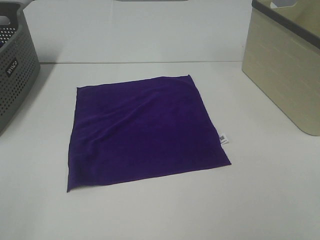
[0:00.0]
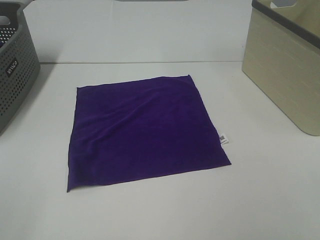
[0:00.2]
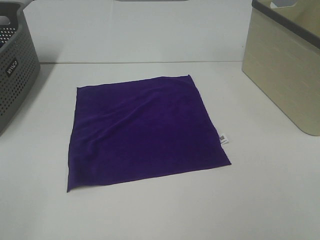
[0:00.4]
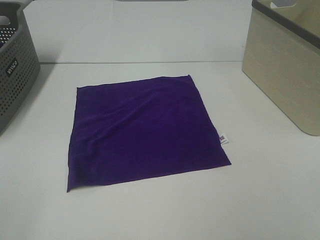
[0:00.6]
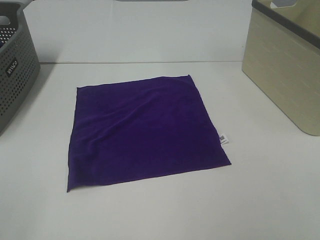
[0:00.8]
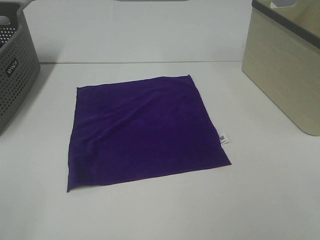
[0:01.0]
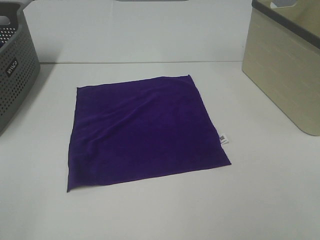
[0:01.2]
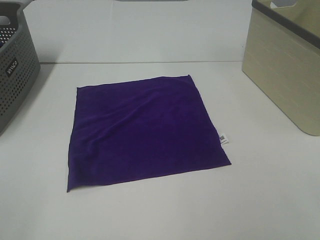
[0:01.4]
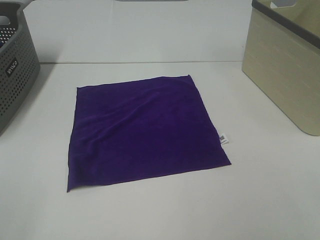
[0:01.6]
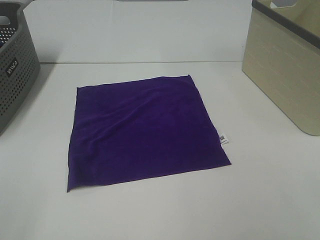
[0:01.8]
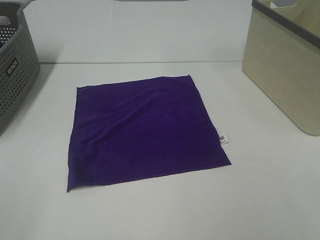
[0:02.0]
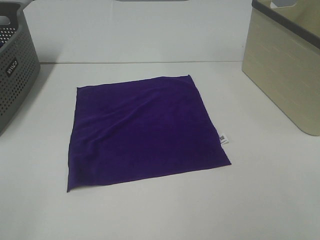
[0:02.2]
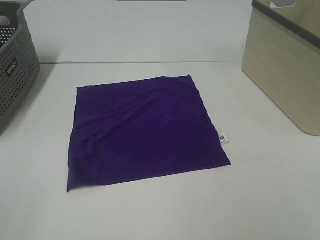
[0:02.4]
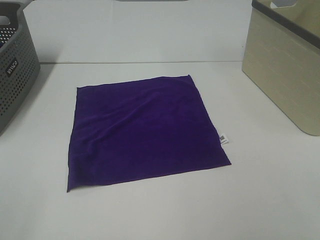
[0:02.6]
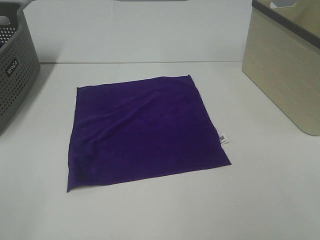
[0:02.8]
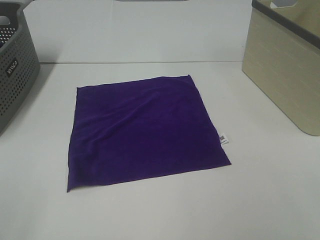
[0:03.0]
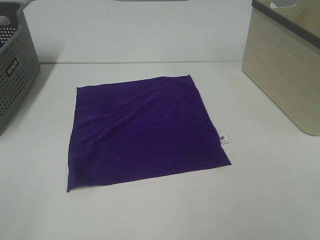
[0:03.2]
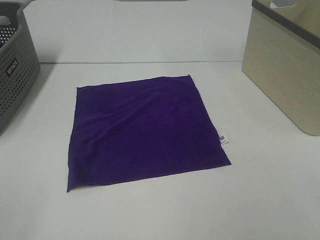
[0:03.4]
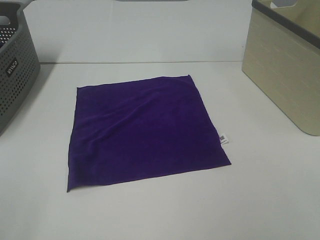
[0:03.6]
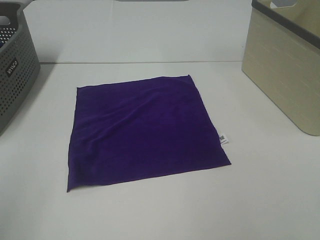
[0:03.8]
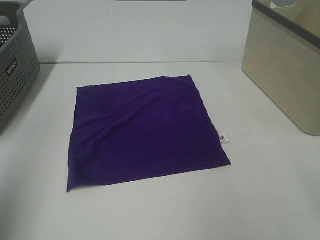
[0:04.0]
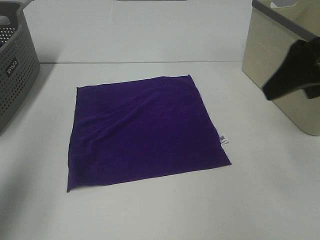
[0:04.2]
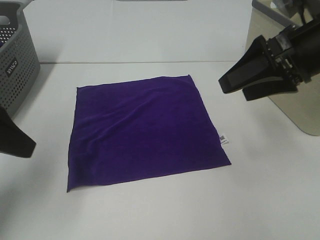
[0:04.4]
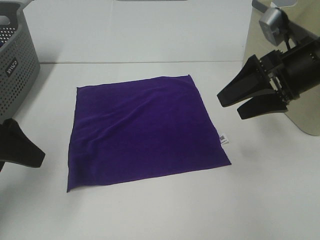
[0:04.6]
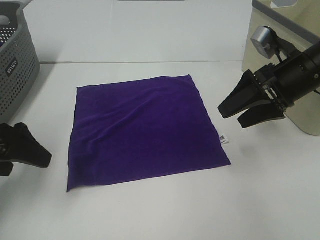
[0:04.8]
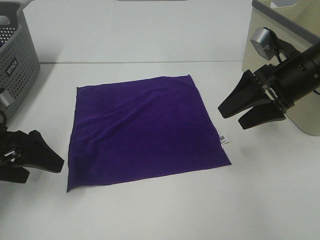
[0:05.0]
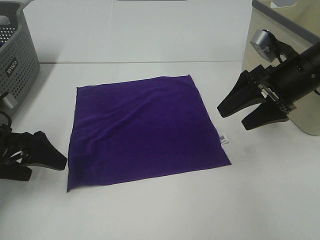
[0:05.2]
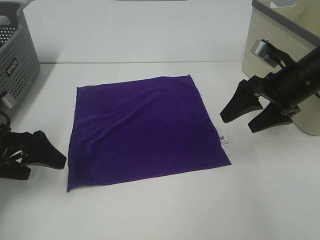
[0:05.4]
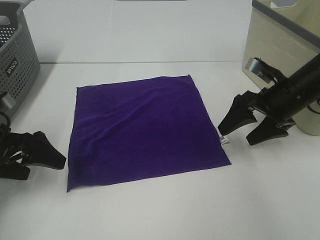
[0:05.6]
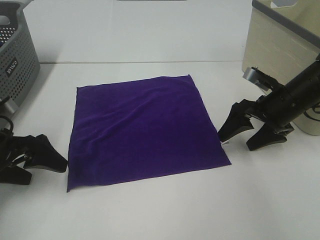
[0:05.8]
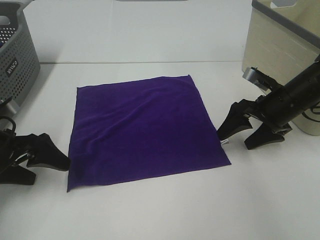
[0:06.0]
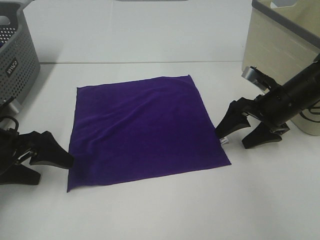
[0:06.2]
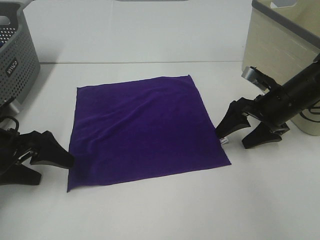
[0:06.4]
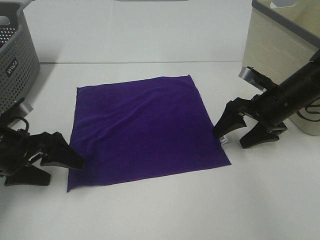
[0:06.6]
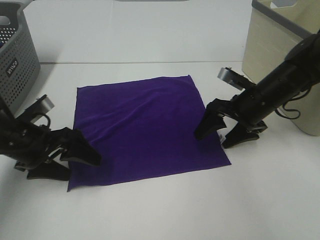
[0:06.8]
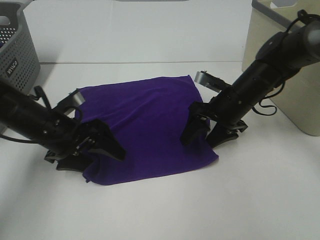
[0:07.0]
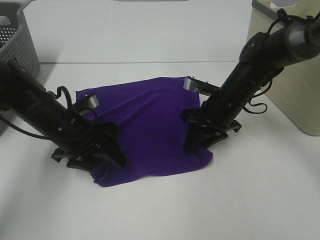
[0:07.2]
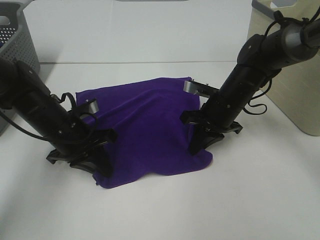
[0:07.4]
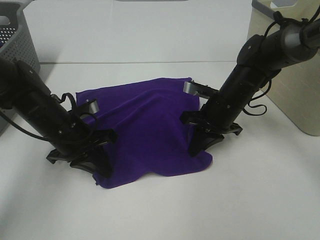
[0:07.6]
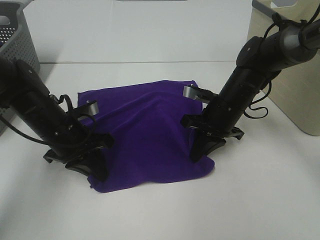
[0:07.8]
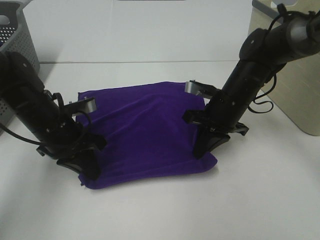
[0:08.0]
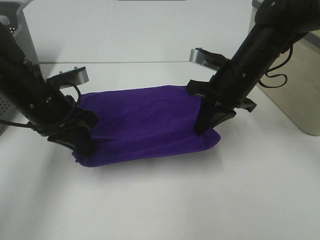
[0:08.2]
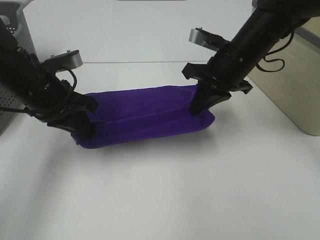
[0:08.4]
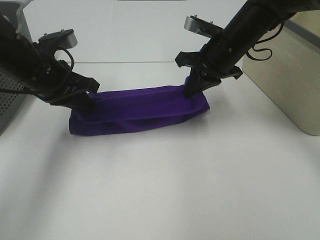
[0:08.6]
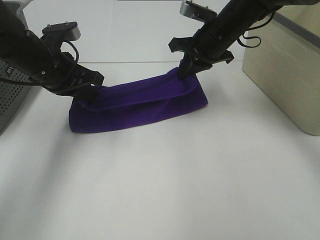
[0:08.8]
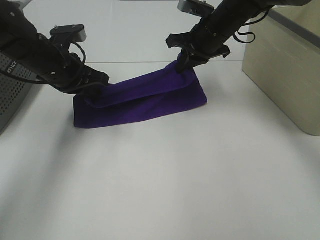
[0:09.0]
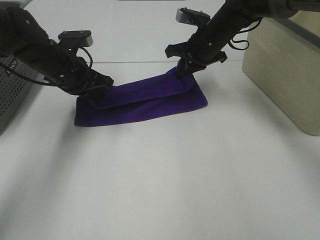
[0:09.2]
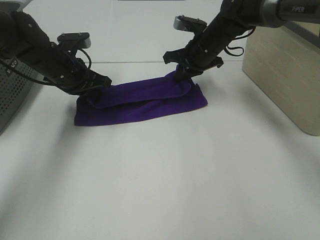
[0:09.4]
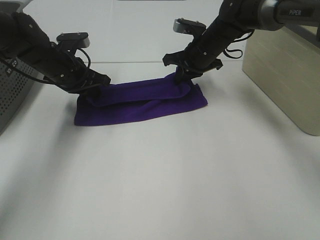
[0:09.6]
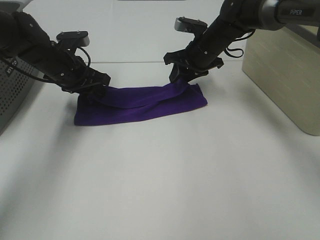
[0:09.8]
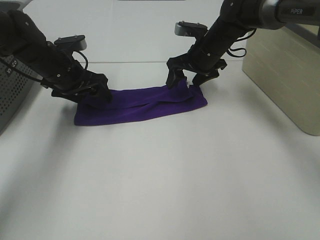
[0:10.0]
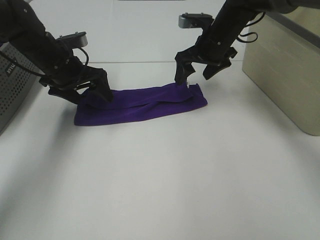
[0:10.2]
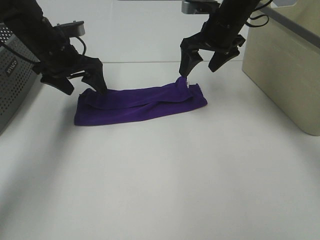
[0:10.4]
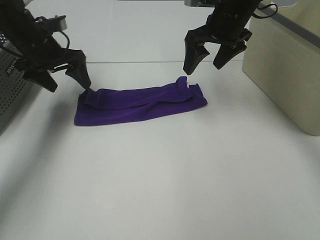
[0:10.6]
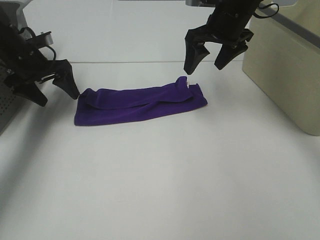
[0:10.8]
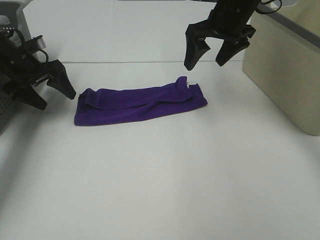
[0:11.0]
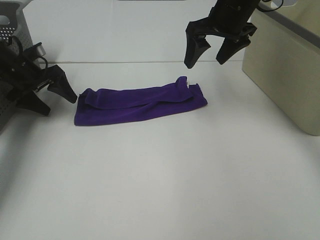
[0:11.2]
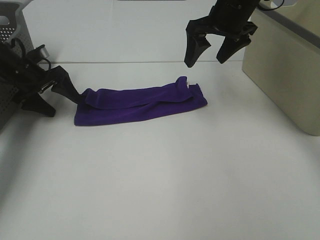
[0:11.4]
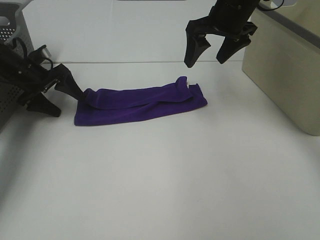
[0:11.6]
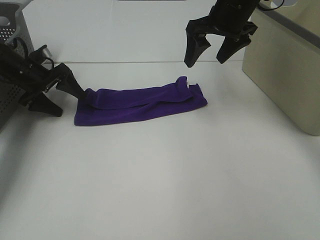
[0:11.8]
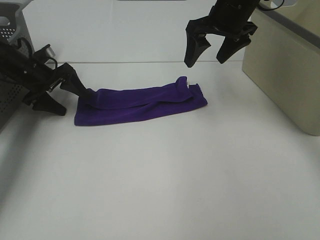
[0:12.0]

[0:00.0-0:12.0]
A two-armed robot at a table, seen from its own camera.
Task of the whole recording: Fold towels.
Step, 0:00.0 to 0:07.6: Left hand: grab the bottom left corner of purple towel.
Step, 0:00.0 to 0:07.6: Right hand: grab the bottom right corner of purple towel.
Step, 0:07.8 to 0:09.8: Left hand: fold the purple towel up.
Step, 0:07.8 to 0:09.8: Right hand: fold the purple towel up.
0:00.0 to 0:03.0: Neither gripper changes place.
0:03.0 to 0:04.4: The two grippers go some 25 cm forward.
0:04.4 to 0:06.0: The right gripper shifts roughly 15 cm downward and forward; the left gripper moves downward, some 15 cm.
0:06.0 to 0:07.6: The left gripper goes roughly 10 cm to the right and forward, and closes. Meanwhile the right gripper travels to the left by some 10 cm, and closes.
0:07.6 to 0:09.0: The grippers both shift upward and forward by about 15 cm.
0:09.0 to 0:10.4: The right gripper opens, while the left gripper changes place by approximately 5 cm, and opens up.
0:10.4 to 0:12.0: The left gripper shifts roughly 10 cm downward and to the left.

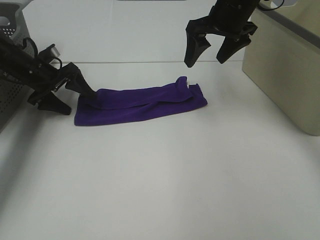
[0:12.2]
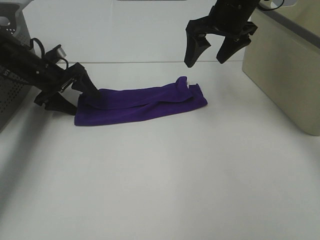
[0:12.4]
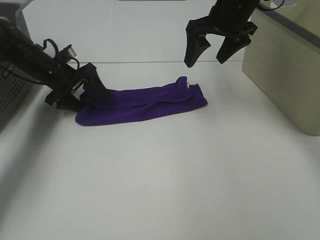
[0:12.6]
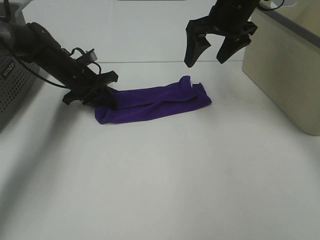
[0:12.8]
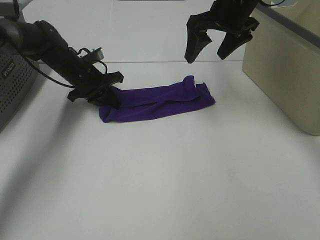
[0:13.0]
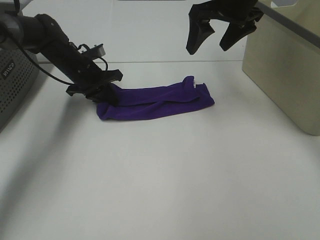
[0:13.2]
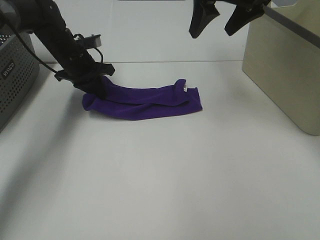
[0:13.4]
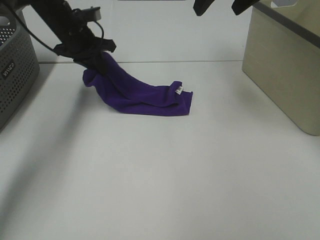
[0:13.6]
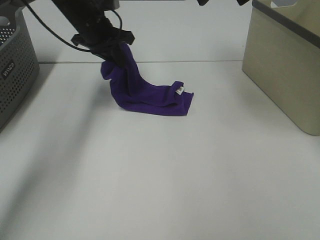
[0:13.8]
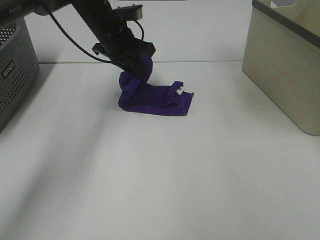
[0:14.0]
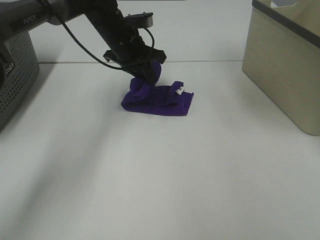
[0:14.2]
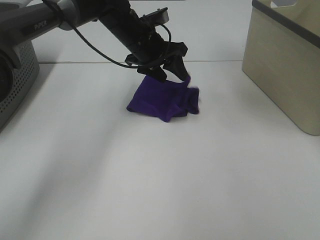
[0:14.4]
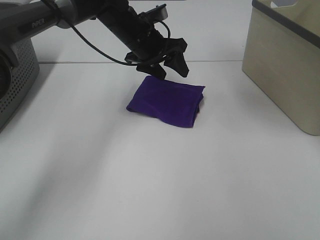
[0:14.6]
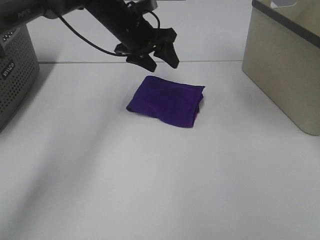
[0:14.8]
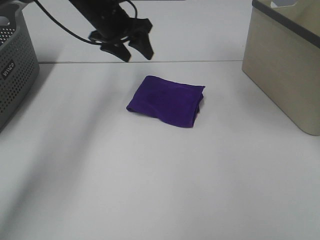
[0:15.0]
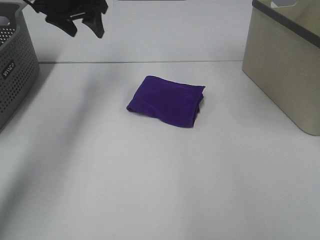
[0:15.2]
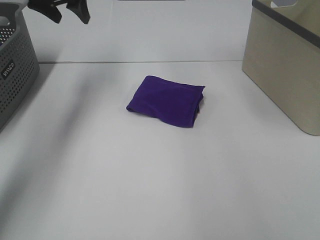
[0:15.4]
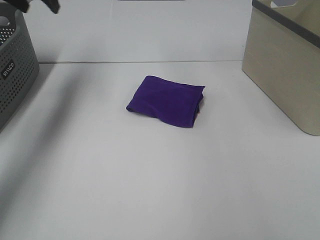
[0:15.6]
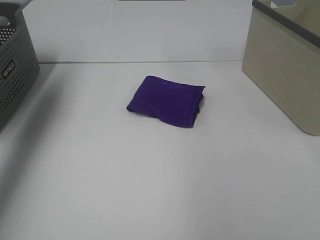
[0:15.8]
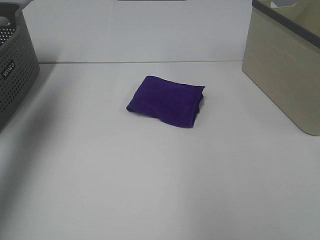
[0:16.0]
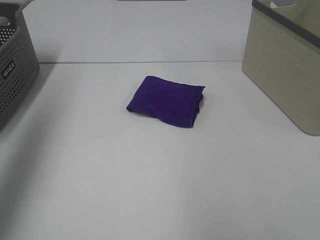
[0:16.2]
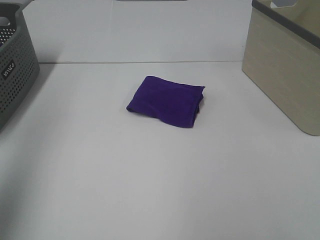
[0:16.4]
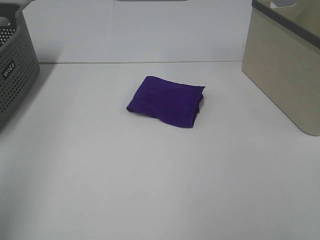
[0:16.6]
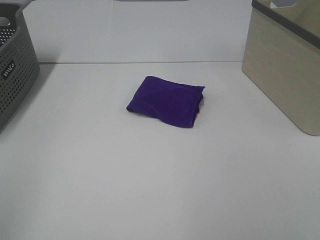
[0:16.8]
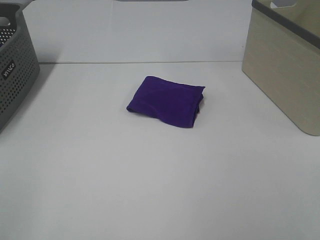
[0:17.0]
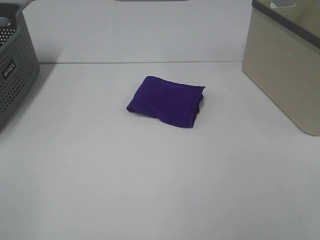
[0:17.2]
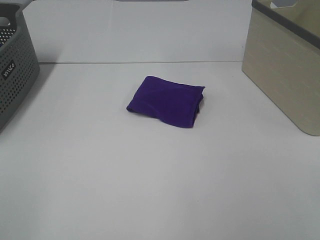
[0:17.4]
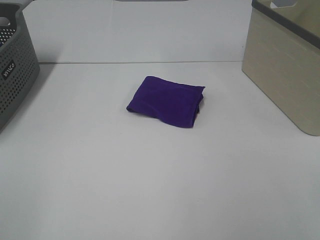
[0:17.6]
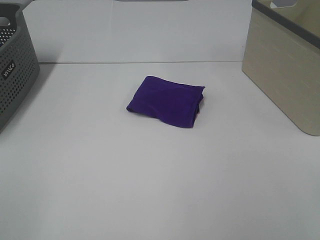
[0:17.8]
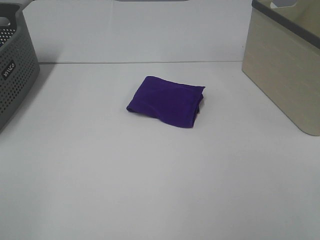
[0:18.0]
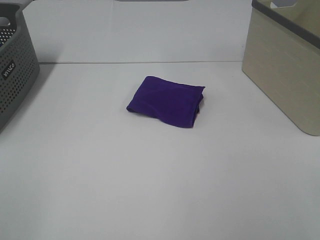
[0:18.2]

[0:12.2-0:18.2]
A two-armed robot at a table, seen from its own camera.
Task of the whole recording: Fold towels.
Step, 0:12.2 to 0:14.2: Left hand: fold the purple towel from left to right.
0:12.2 to 0:13.8: The left gripper travels to the right and upward by about 20 cm, and closes its fingers. Meanwhile the right gripper moves upward and backward, roughly 15 cm.
0:13.8 to 0:15.2: The left gripper travels upward and to the left by approximately 10 cm, and opens its fingers.
0:15.2 to 0:16.6: Both grippers travel together backward, roughly 40 cm.

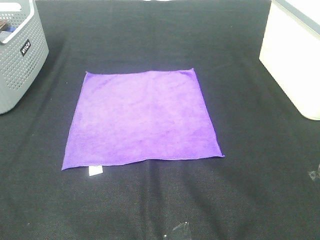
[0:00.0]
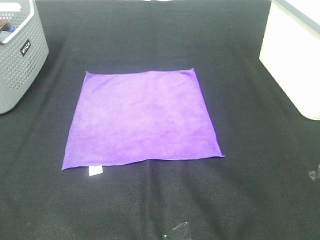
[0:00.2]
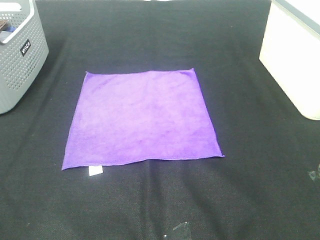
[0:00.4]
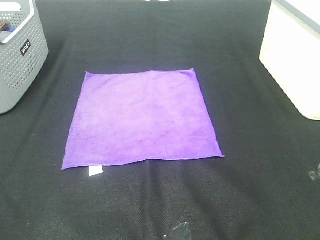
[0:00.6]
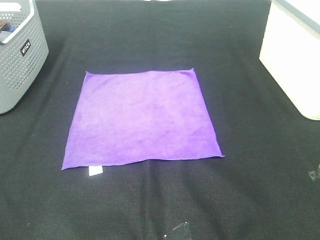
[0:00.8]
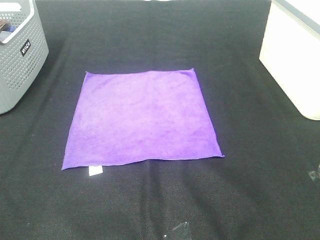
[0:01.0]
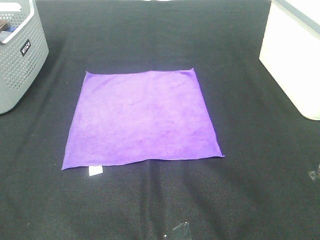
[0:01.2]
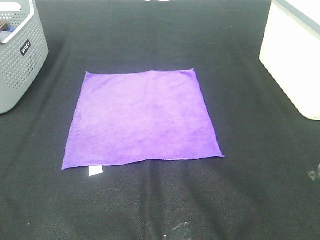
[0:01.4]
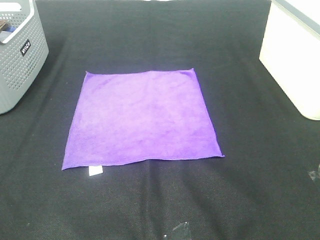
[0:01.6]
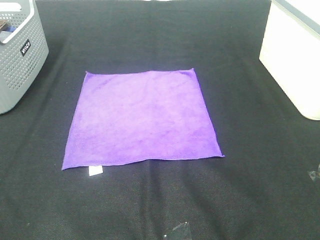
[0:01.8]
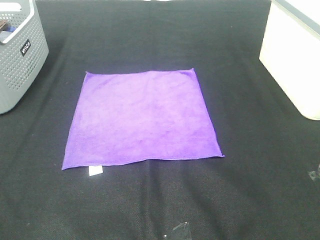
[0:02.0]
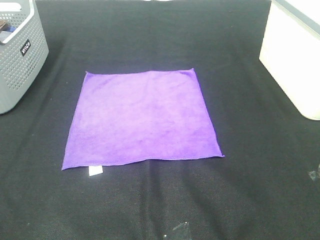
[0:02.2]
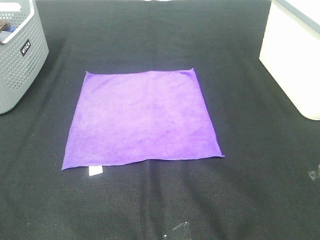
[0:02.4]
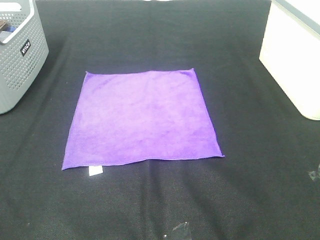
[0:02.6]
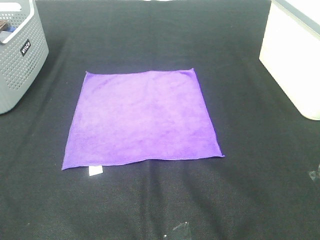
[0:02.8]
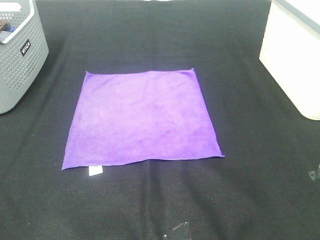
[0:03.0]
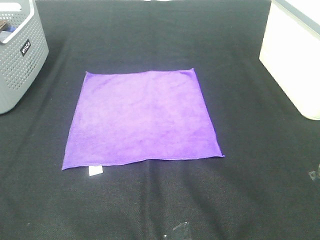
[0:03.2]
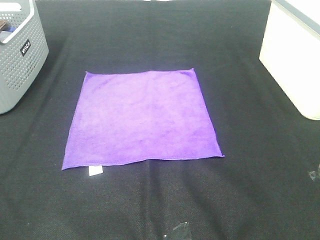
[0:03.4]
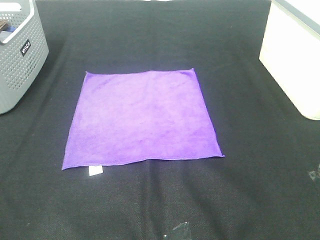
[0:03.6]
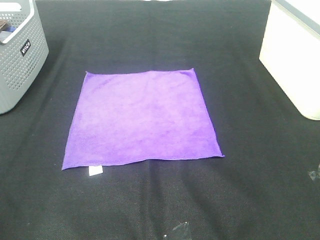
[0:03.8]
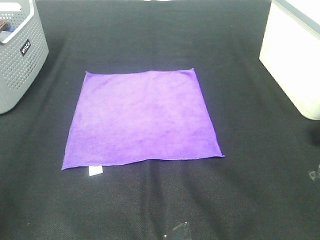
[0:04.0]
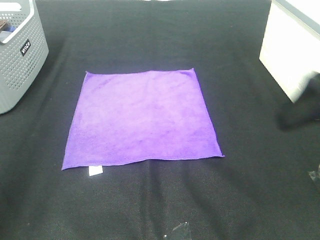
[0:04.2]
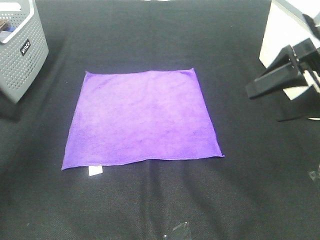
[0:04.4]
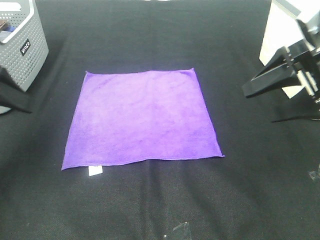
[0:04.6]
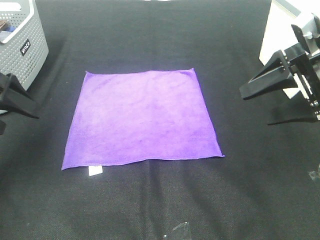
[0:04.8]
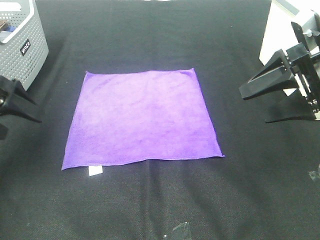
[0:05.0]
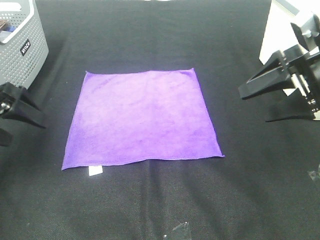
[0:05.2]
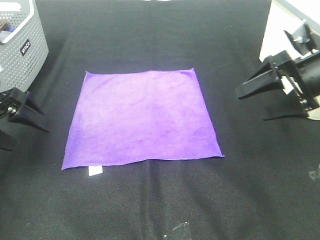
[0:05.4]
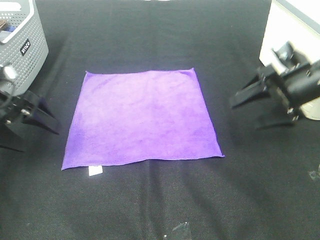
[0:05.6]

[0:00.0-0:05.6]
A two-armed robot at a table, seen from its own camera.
Task of the whole recording: Fold towels.
0:00.0 to 0:02.8: Both grippers stay about where they are.
0:02.8 to 0:04.2: The two grippers go roughly 20 cm forward.
0:04.2 to 0:05.6: The right gripper heads forward and downward, covering roughly 20 cm; the left gripper heads downward and forward, covering approximately 20 cm.
